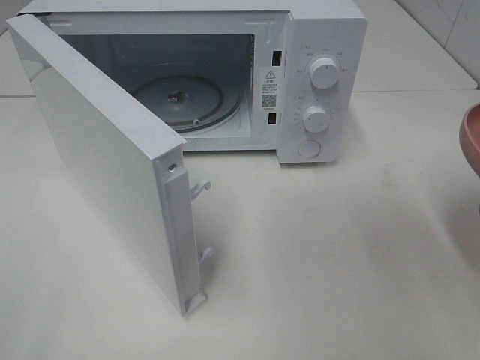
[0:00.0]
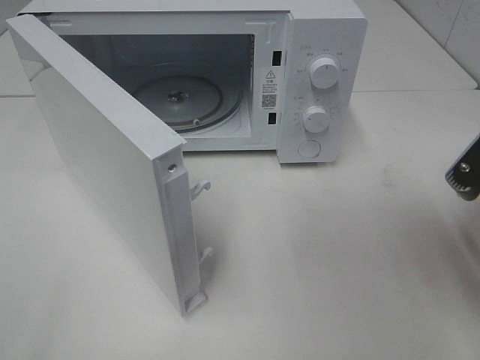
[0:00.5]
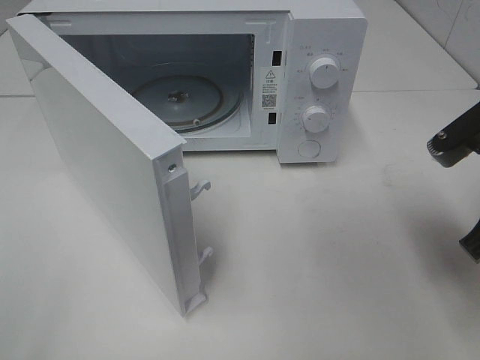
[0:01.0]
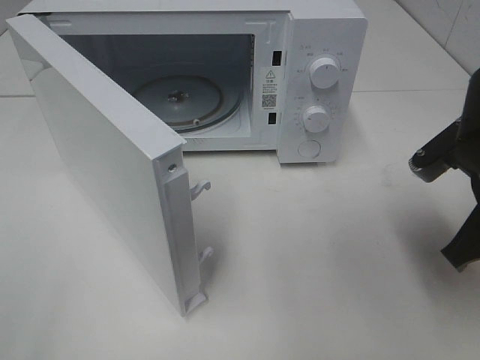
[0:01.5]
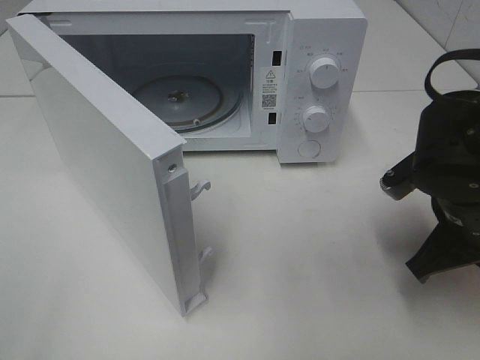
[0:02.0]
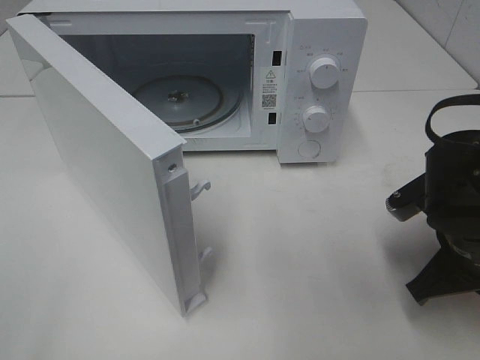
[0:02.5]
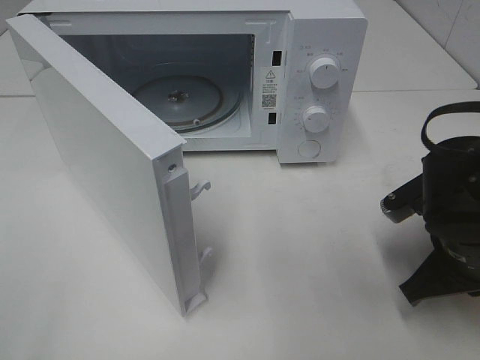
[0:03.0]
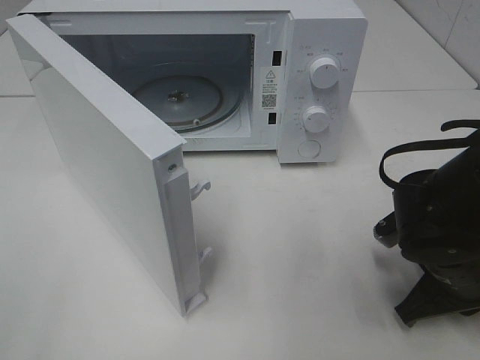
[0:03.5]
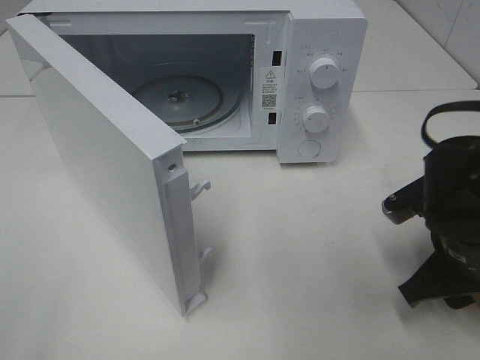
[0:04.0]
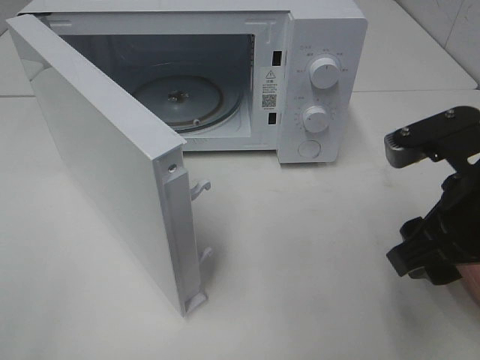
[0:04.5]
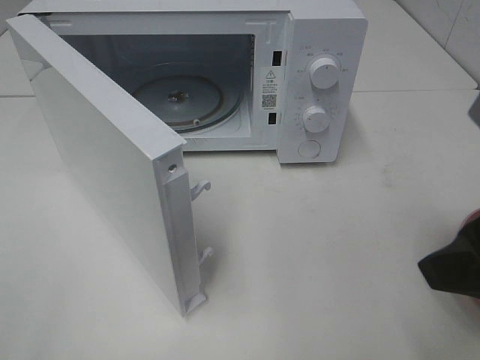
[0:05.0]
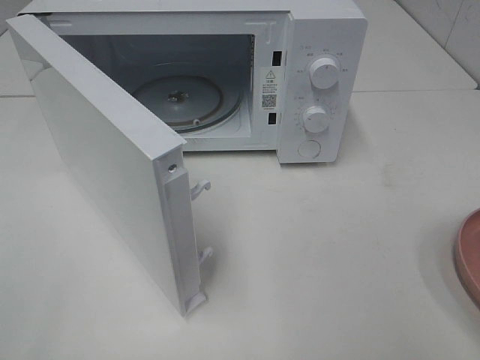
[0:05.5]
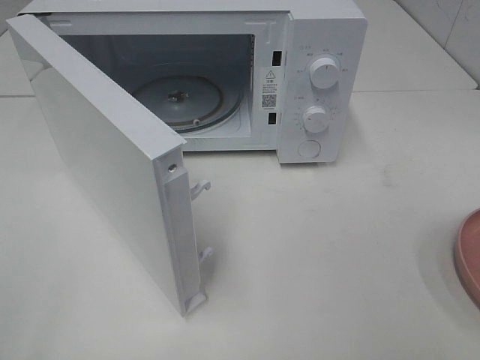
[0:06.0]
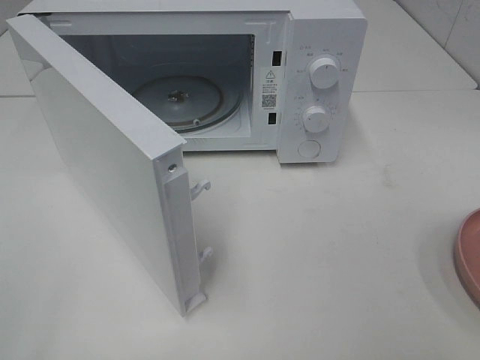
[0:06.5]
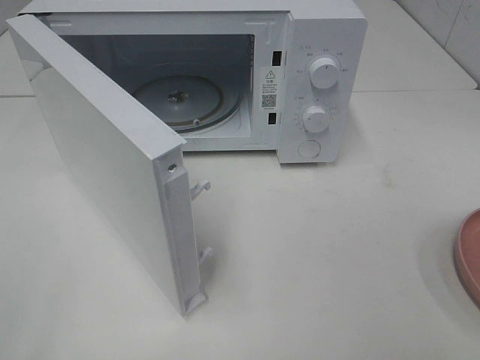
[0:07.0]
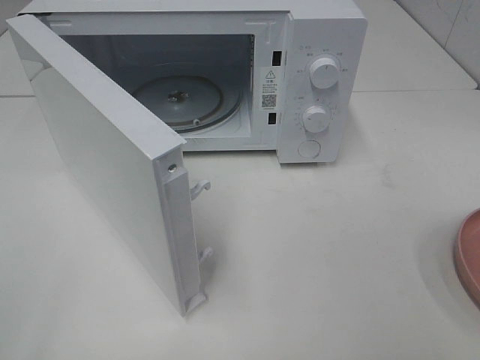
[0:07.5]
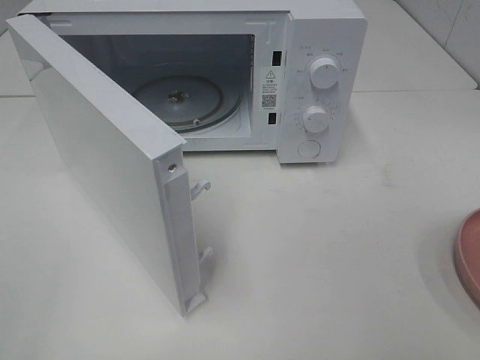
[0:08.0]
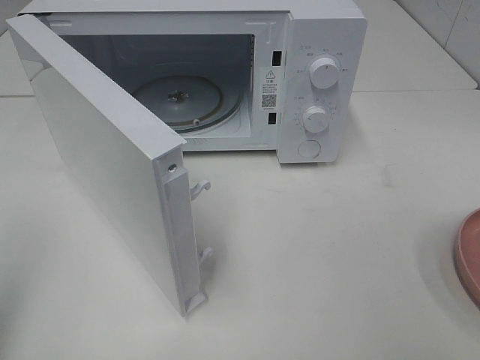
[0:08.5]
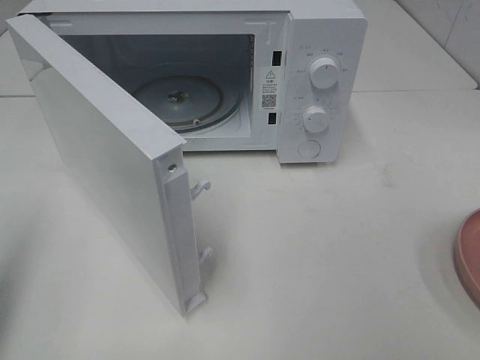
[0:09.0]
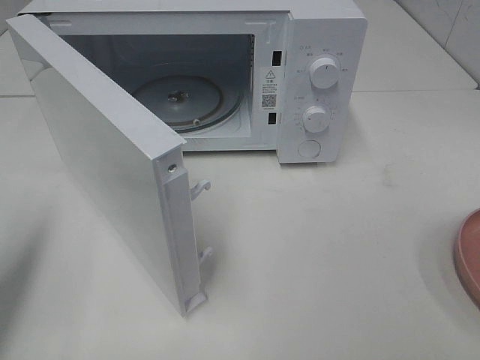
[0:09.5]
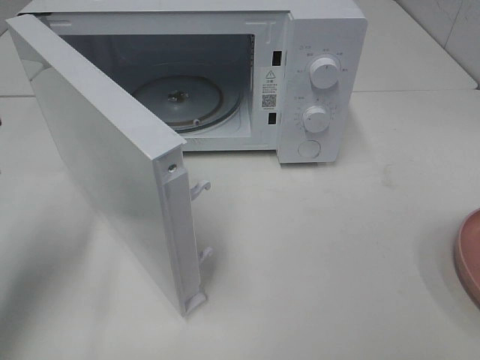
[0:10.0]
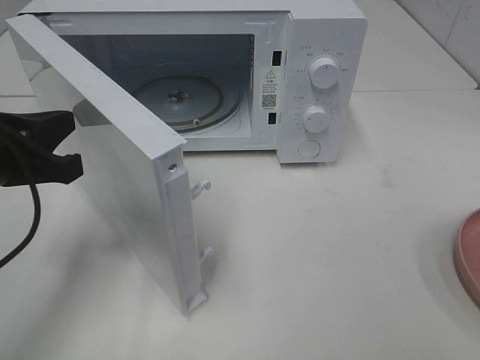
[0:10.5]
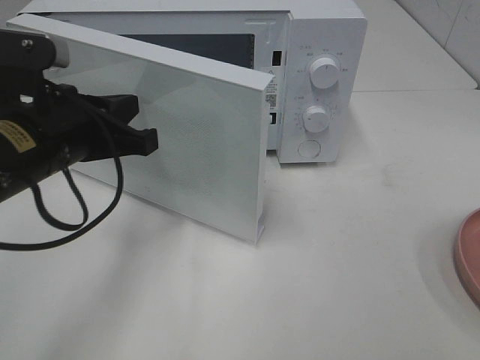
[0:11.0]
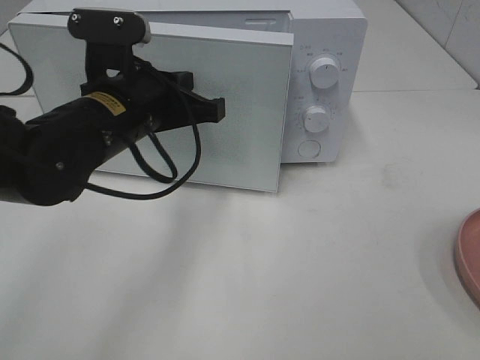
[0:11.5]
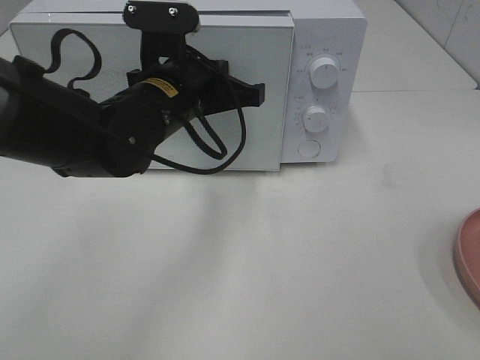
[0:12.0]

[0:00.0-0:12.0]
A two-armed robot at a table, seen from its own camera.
Task of the whole recording: Heat the burger.
Step, 0:00.0 to 0:03.5: Right hand: place the plate on the table.
0:00.0 to 0:02.0: The right gripper is displaced downward and forward by some 10 cm.
0:02.0 to 0:04.0: The right gripper opens up.
0:04.0 to 0:06.0: The right gripper travels backward and upward by some 25 cm.
0:08.0 to 0:10.0: The left gripper shifts approximately 20 cm forward and downward, and closes its fingers.
0:10.0 to 0:12.0: The left gripper moves to the right and forward, some 25 cm.

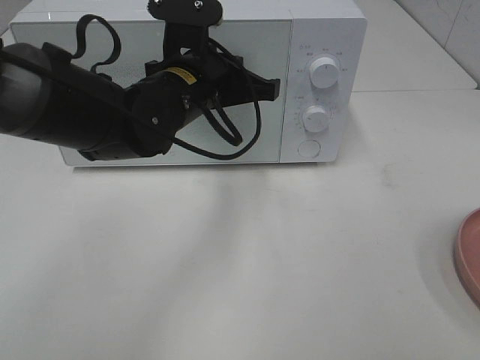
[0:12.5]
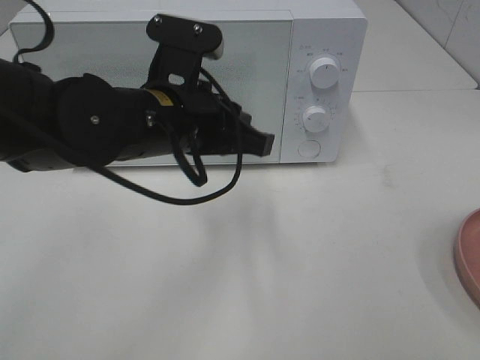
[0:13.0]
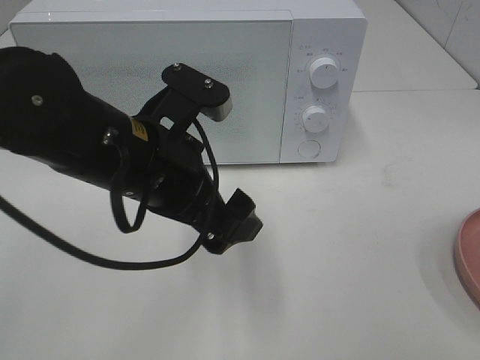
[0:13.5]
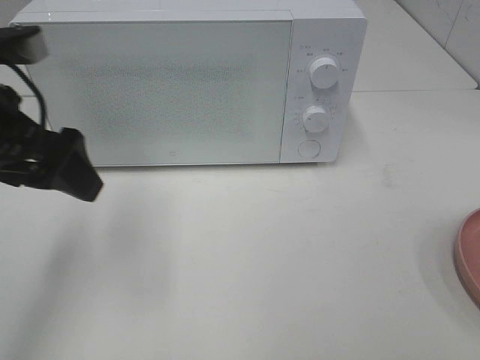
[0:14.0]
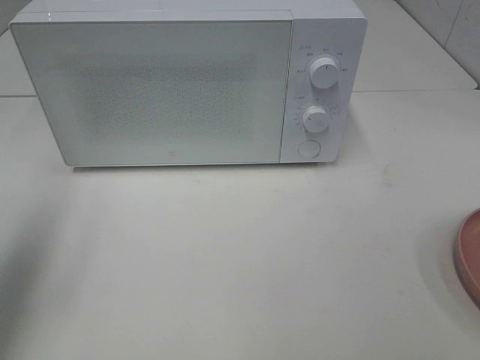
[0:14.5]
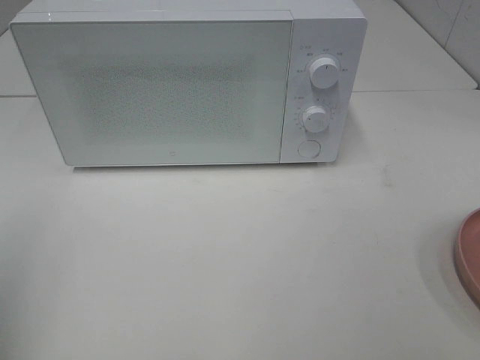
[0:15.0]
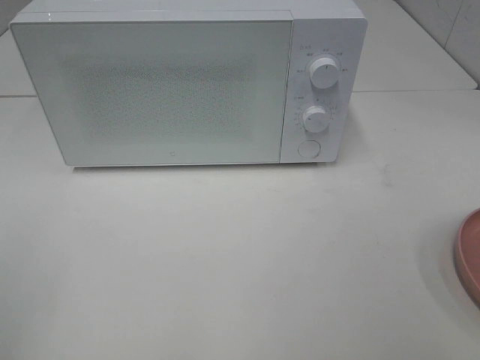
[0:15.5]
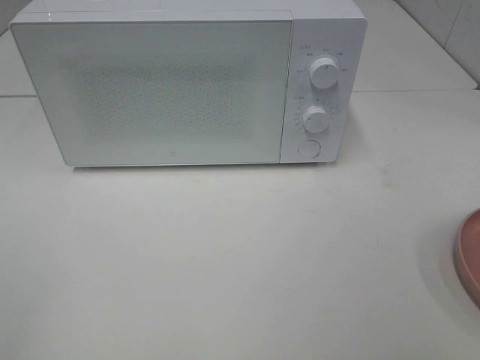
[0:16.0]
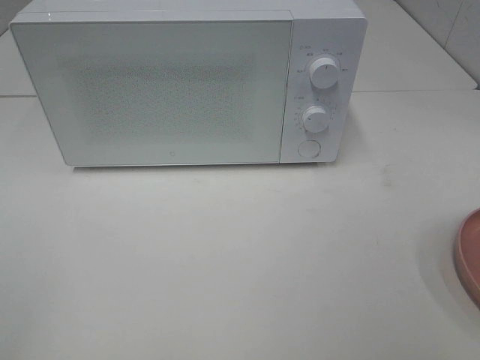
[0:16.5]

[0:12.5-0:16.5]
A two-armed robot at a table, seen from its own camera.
Task of the whole recording: Heat the burger.
0:12.5 to 0:14.5: The left gripper moves to the left, backward and upward, approximately 35 cm, and opens.
0:14.5 to 0:16.5: The left gripper heads backward, covering approximately 20 cm.

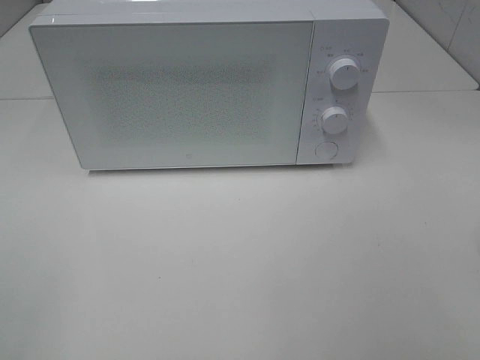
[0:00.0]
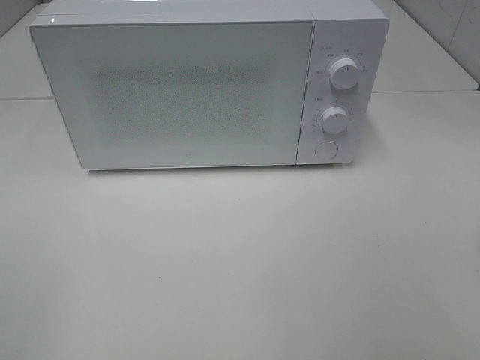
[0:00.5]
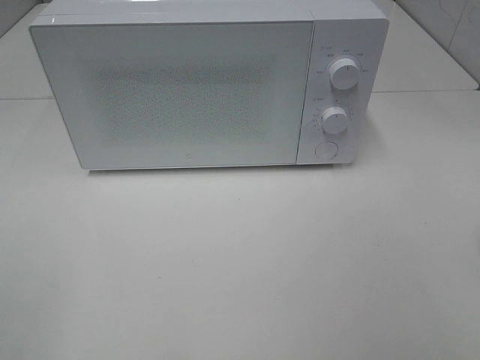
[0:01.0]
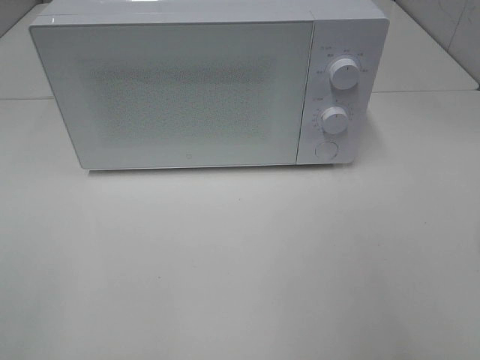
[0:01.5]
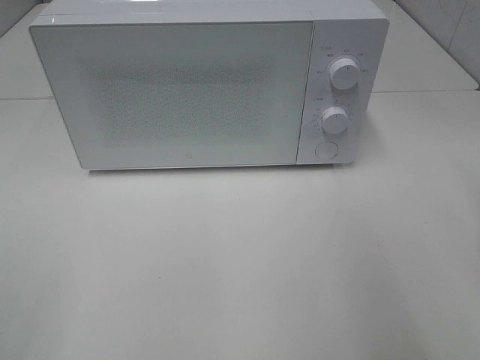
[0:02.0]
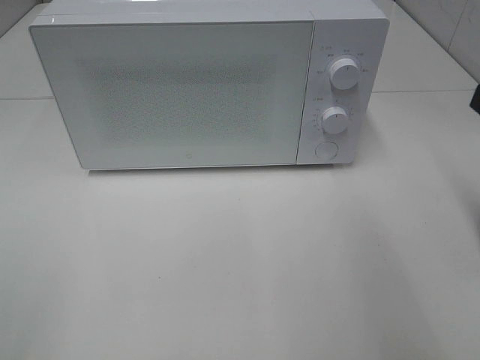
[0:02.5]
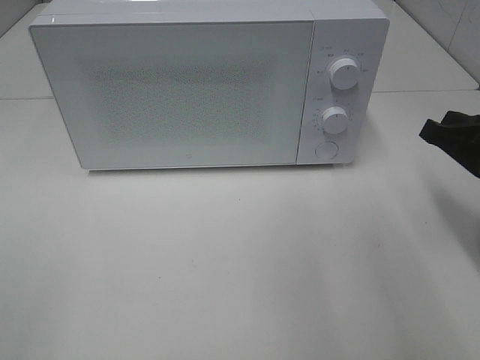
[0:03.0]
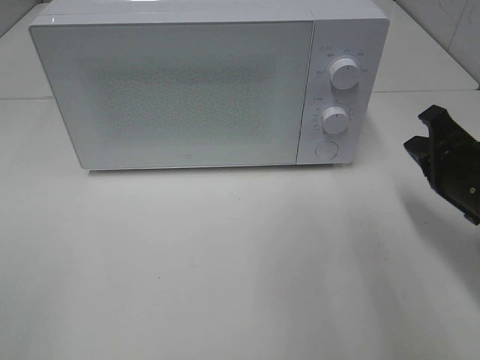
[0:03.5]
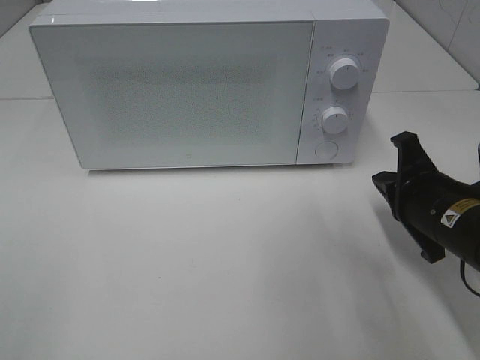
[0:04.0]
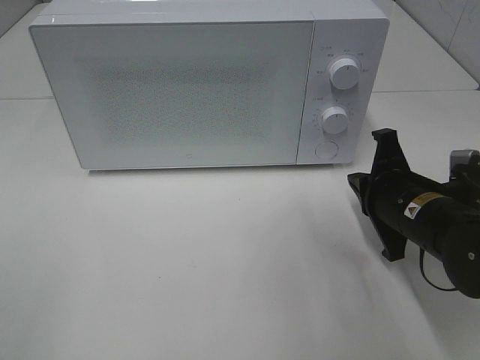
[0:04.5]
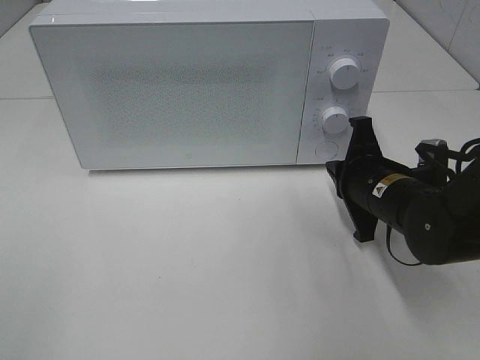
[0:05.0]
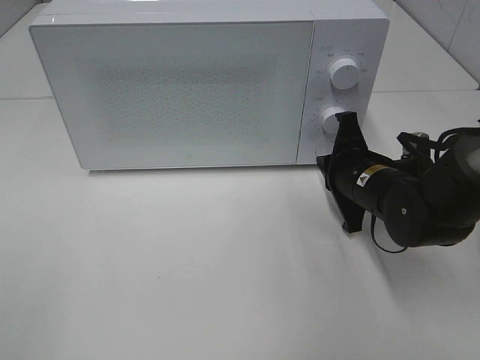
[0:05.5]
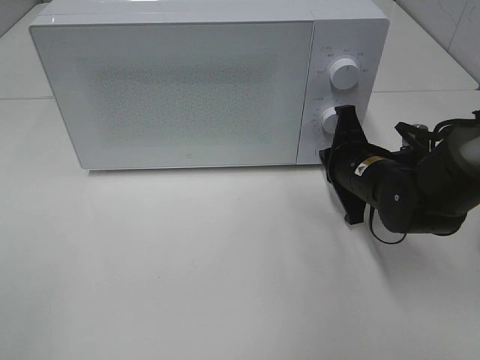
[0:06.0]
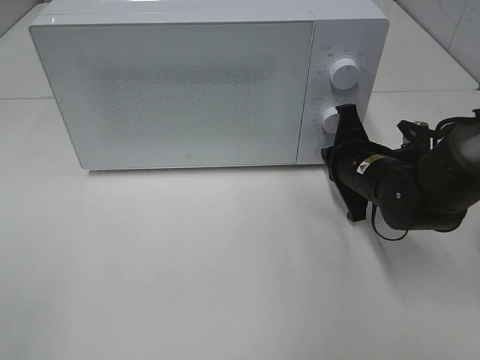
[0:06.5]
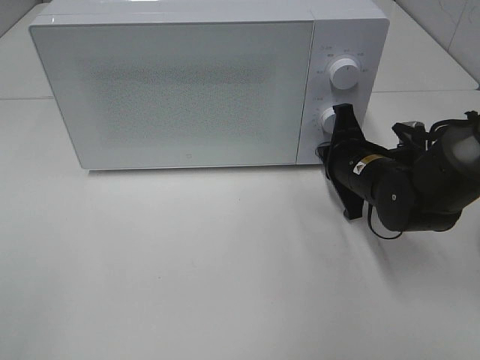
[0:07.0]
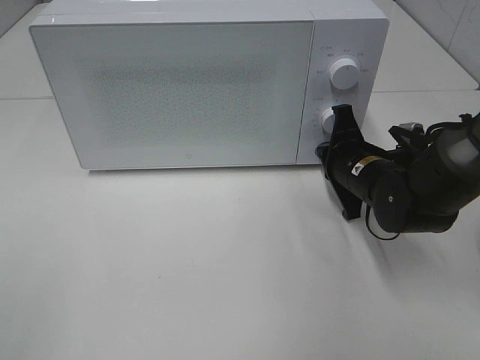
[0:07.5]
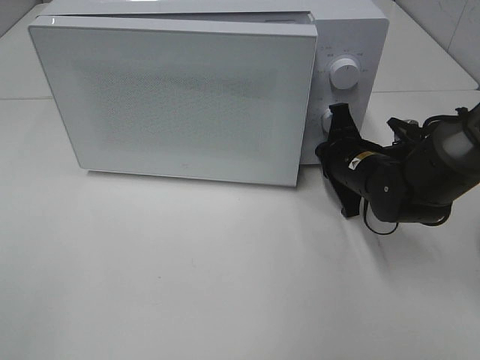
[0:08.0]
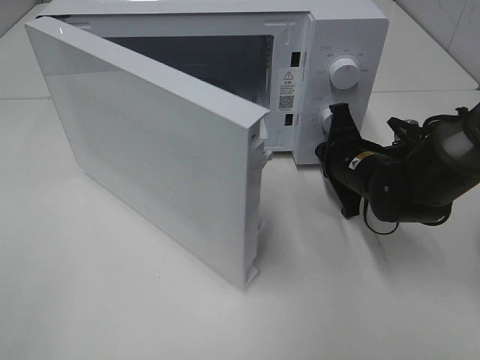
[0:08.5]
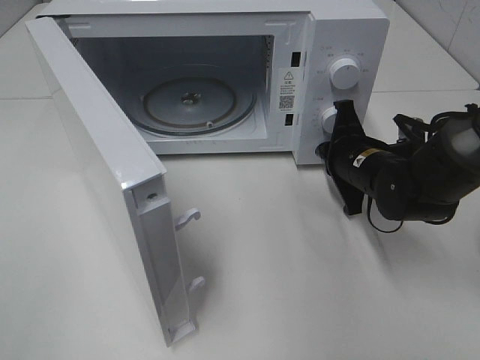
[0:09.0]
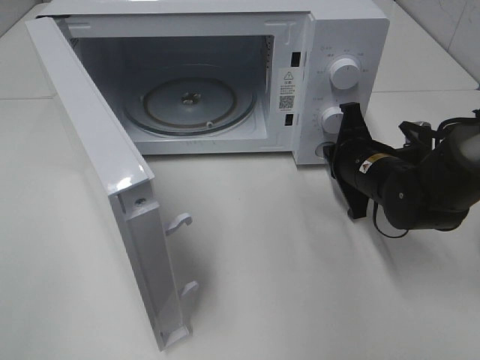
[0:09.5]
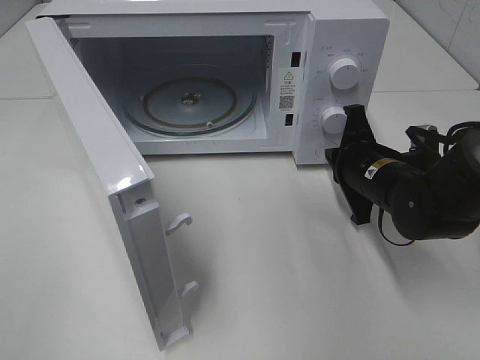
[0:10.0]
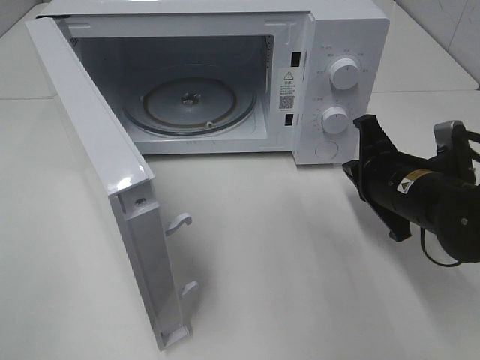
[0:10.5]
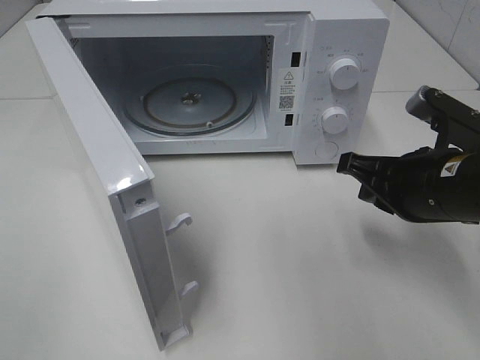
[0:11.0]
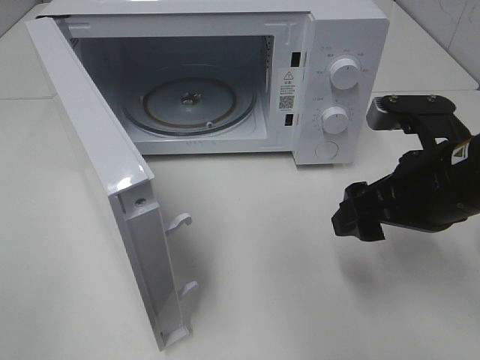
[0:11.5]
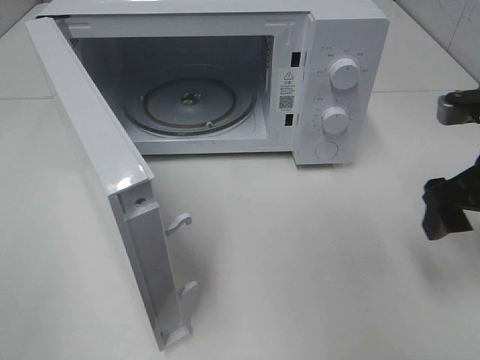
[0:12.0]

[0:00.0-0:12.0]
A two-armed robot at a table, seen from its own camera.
Task of the whole recording: Heat the burger.
Step, 0:00.0 to 0:09.5: Right hand: press the switch.
0:02.0 to 0:04.0: The right gripper goes about 20 cm downward and forward.
0:04.0 to 0:06.0: The right gripper heads forward and to the left, covering about 10 cm.
0:06.0 to 0:08.0: The grippers stay close to where they were, moving slightly.
0:10.0 to 0:12.0: The right gripper goes about 15 cm upward, to the right and backward, and opens.
